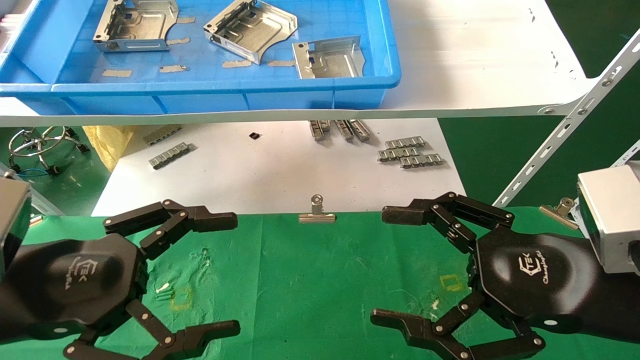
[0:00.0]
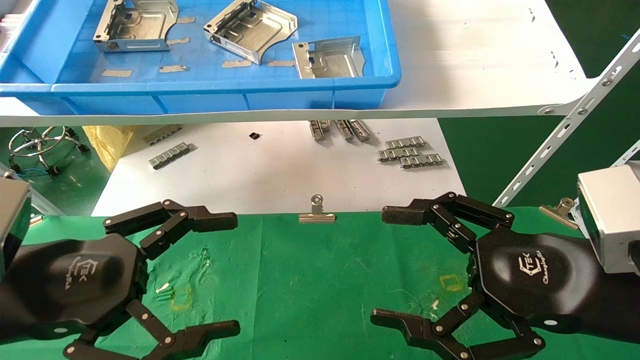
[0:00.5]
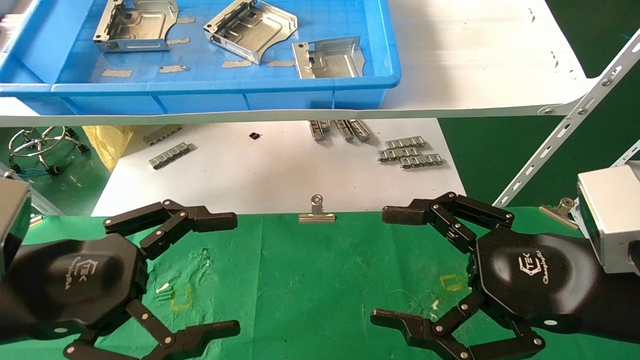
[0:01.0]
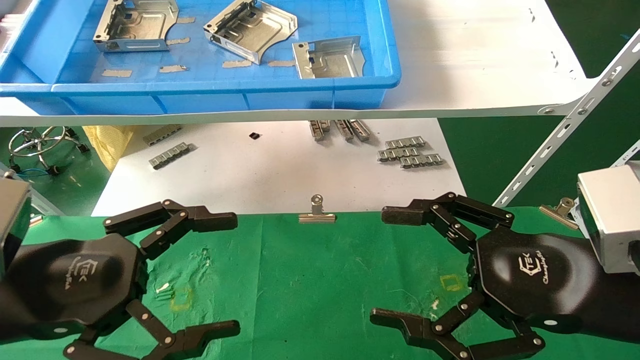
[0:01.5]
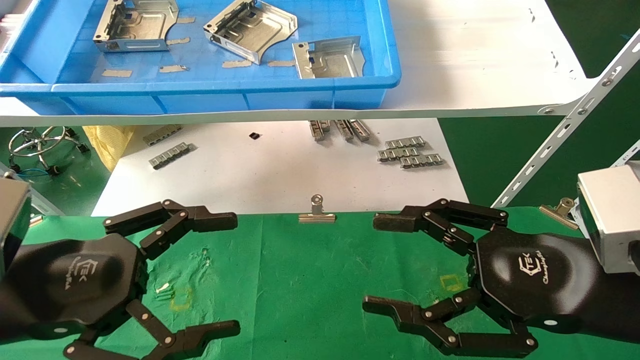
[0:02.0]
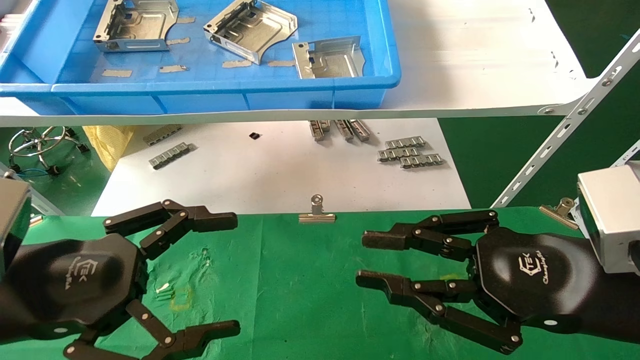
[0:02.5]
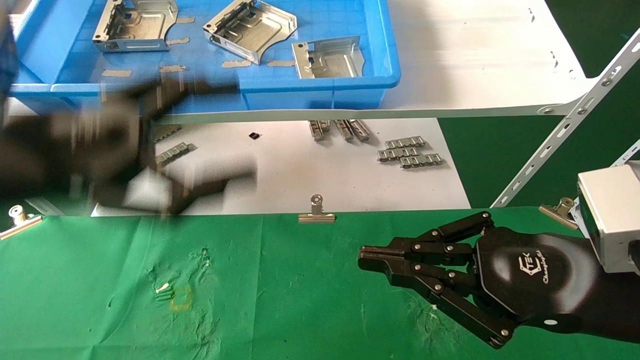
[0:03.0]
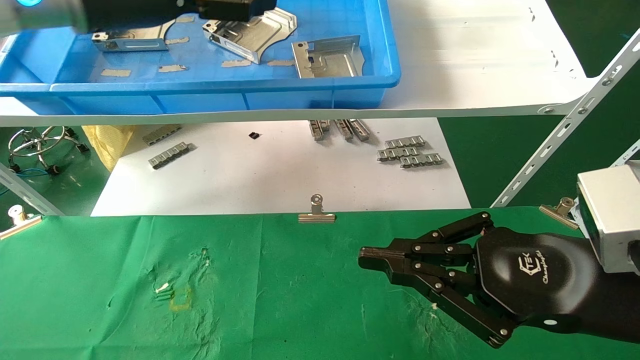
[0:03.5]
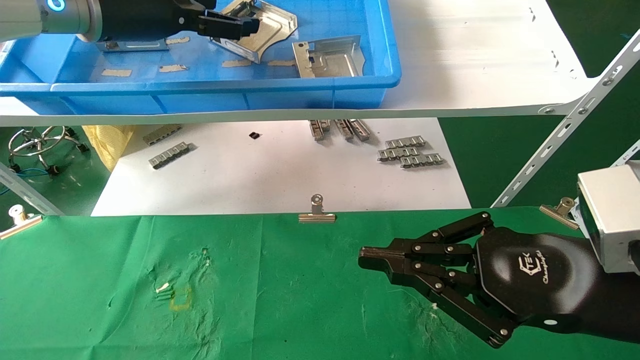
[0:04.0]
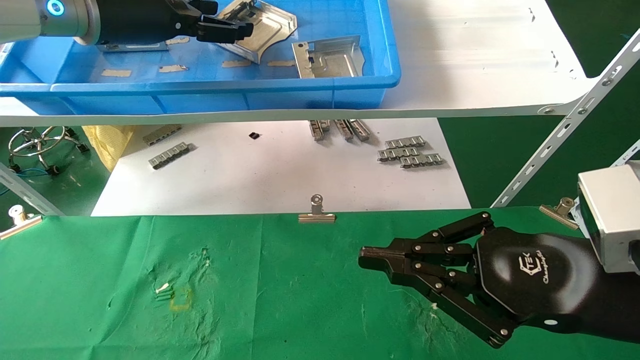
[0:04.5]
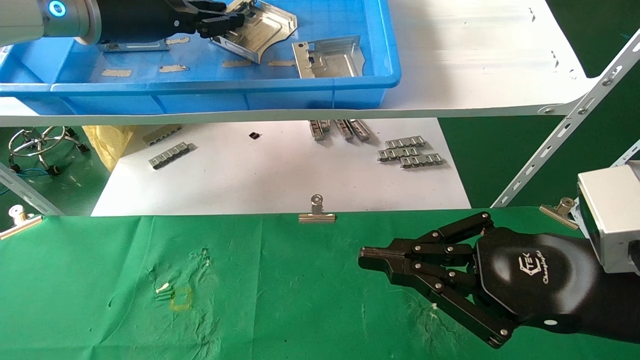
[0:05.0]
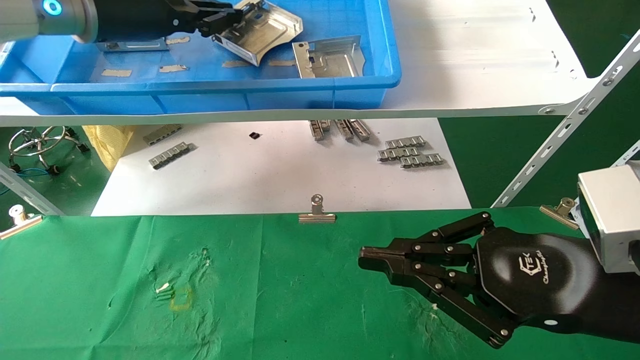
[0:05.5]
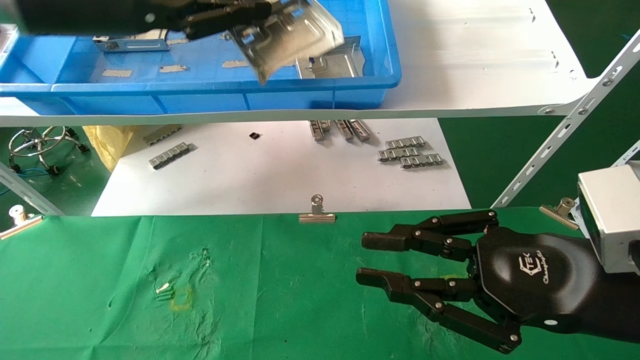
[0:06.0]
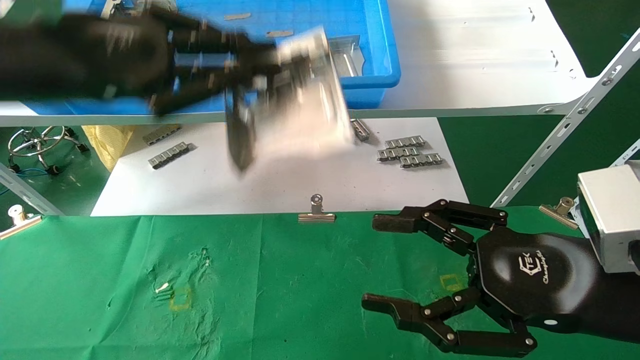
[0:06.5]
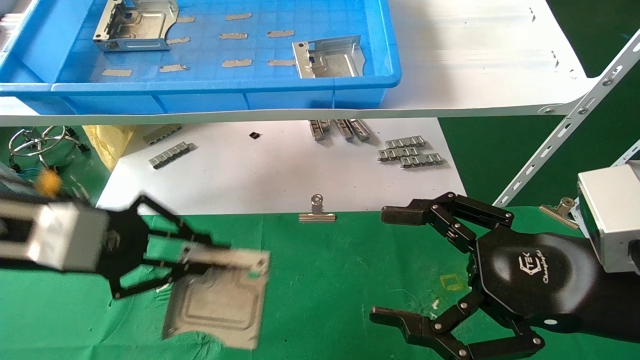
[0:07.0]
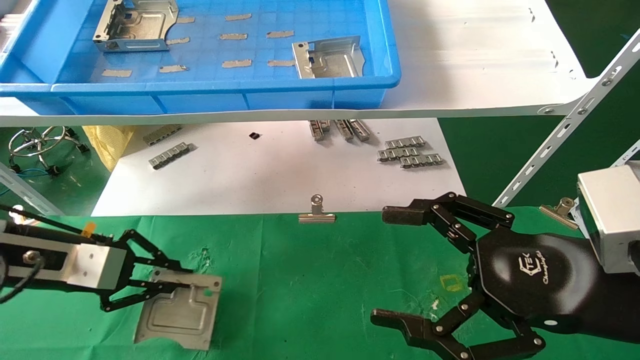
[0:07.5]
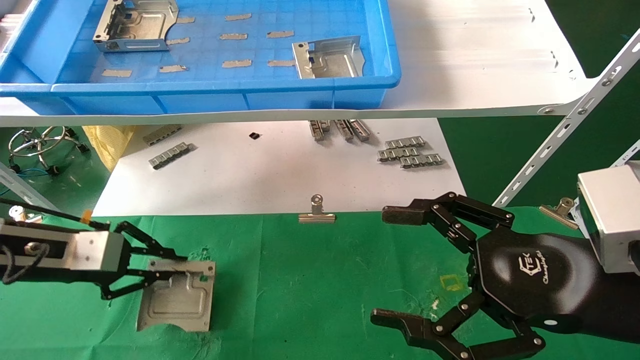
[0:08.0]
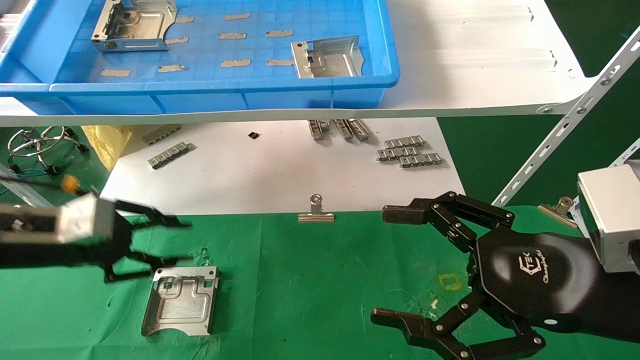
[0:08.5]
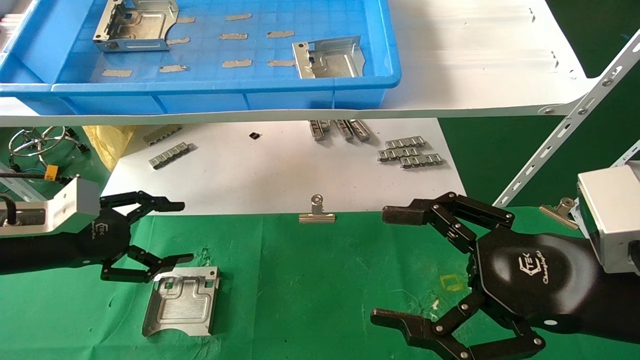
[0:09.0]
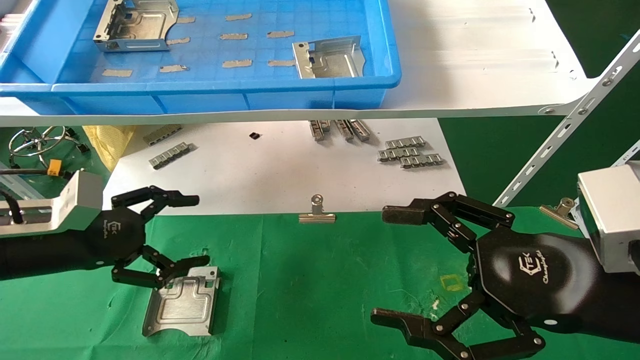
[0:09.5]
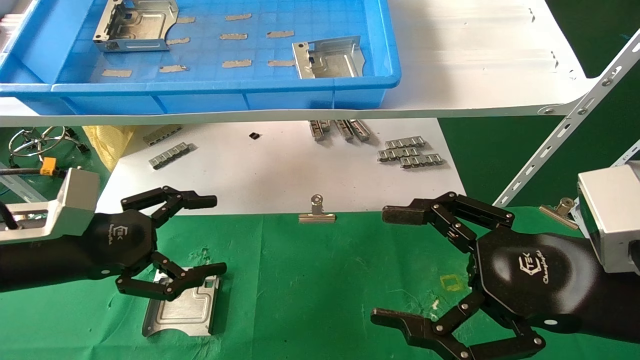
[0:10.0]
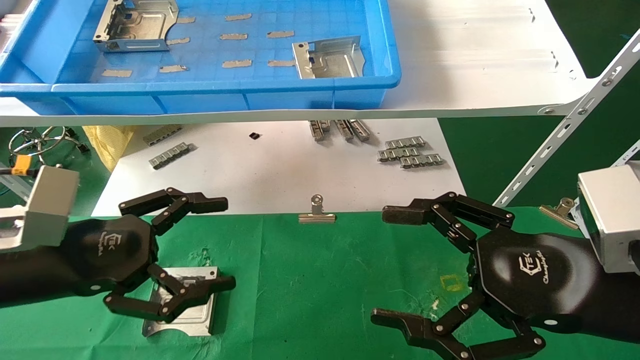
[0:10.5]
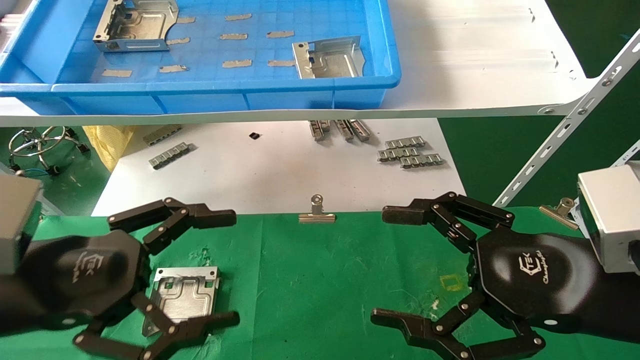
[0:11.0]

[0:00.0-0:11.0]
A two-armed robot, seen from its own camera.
Task of the whole recording: use the mechanical arm to pick up the parts and place them on the table.
Step, 0:03.5 to 0:05.0: Pick up the hard drive bracket from the feeding area.
Step, 0:05.5 to 0:08.5: Place the hard drive bracket into the box.
0:00.0 to 0:02.0: Both grippers stay put.
0:02.0 to 0:03.5: The left gripper travels upward and forward by approximately 30 cm. The right gripper closes.
0:03.5 to 0:05.5: The left gripper closes.
0:05.5 to 0:07.5: The right gripper opens up. Meanwhile the left gripper heads downward and to the left, covering roughly 30 cm.
0:07.5 to 0:09.0: The left gripper opens up.
0:09.0 to 0:11.0: The left gripper goes roughly 15 cm backward and to the right.
